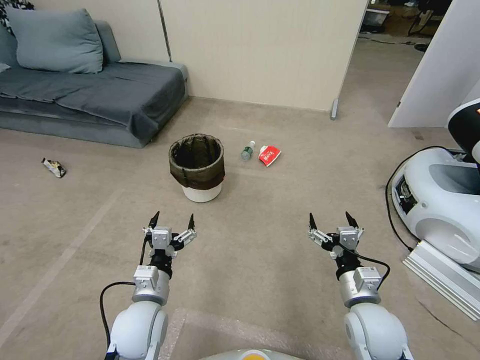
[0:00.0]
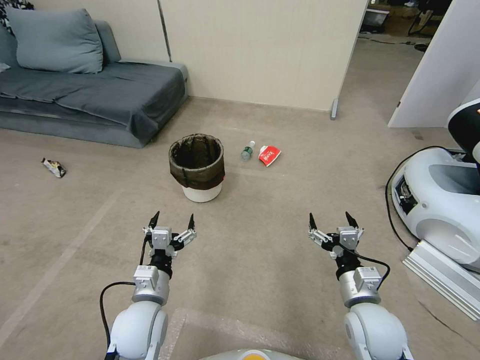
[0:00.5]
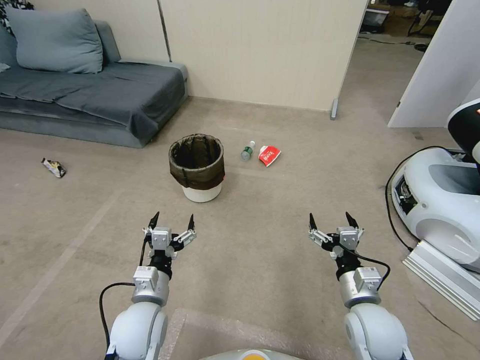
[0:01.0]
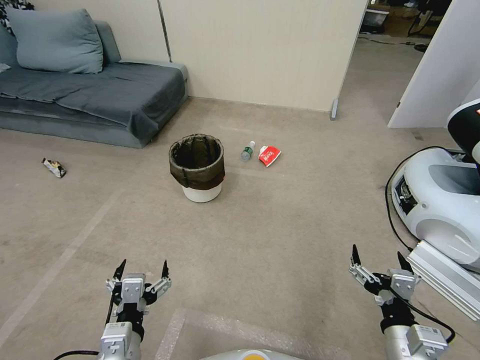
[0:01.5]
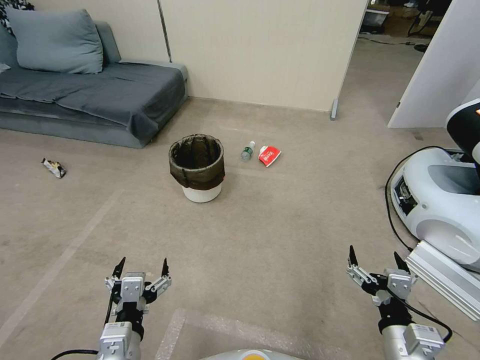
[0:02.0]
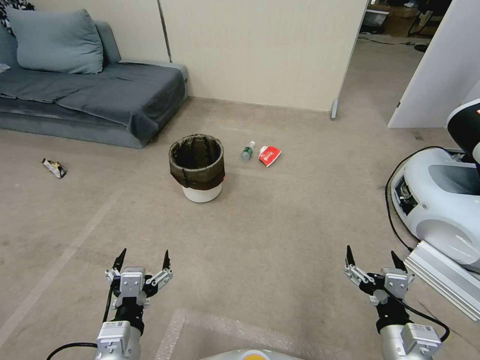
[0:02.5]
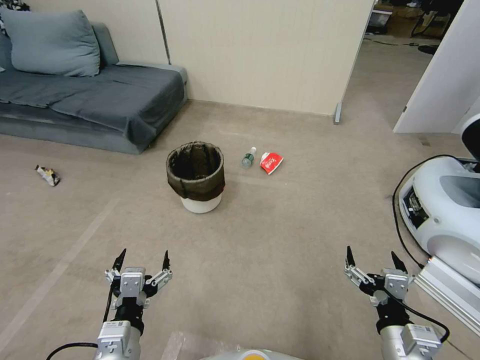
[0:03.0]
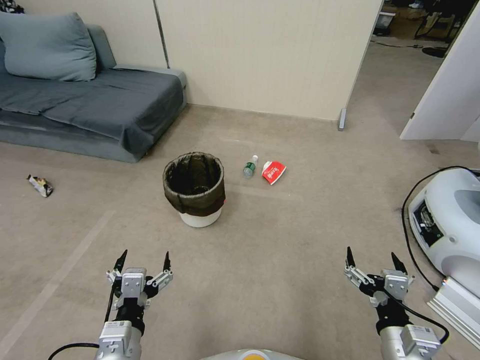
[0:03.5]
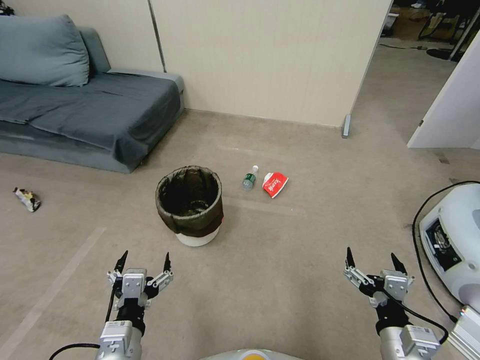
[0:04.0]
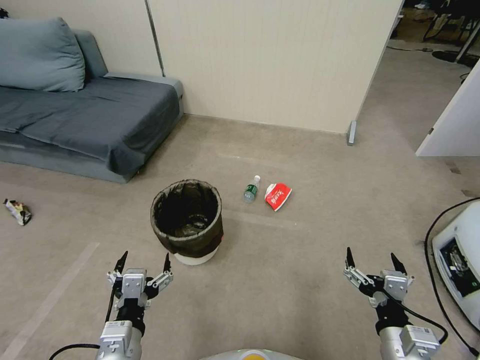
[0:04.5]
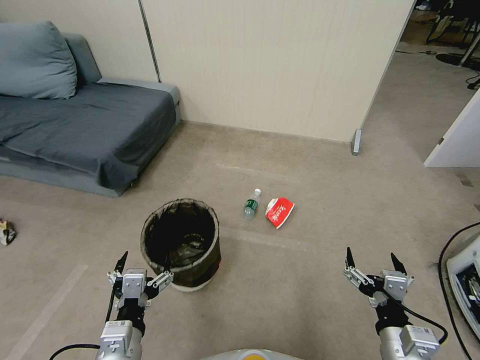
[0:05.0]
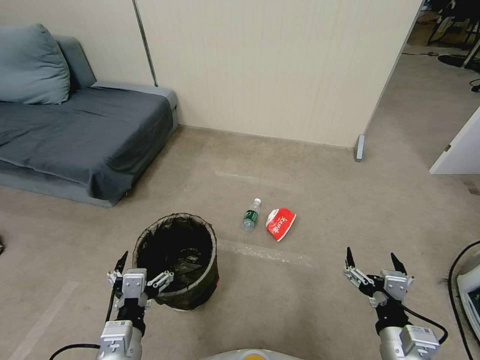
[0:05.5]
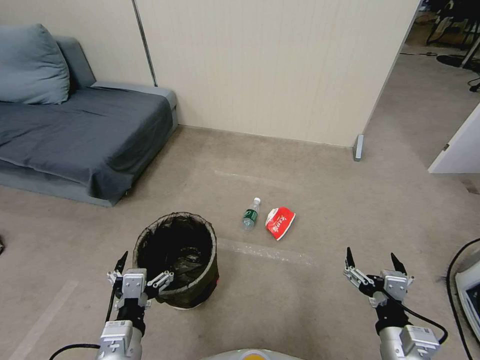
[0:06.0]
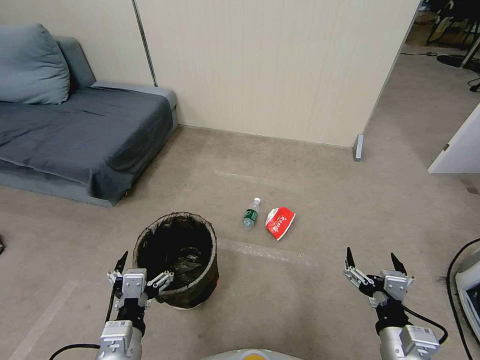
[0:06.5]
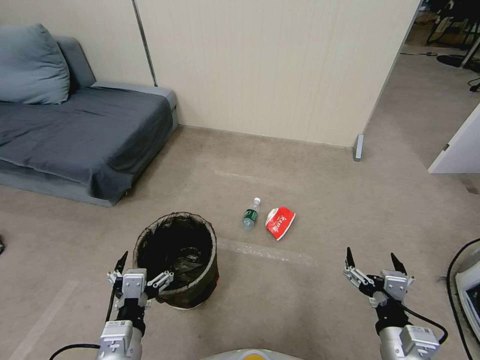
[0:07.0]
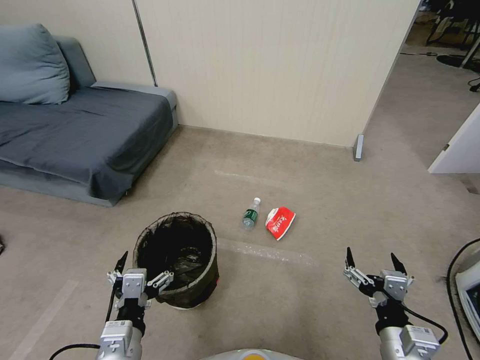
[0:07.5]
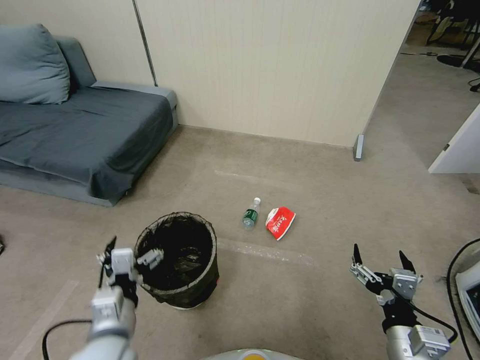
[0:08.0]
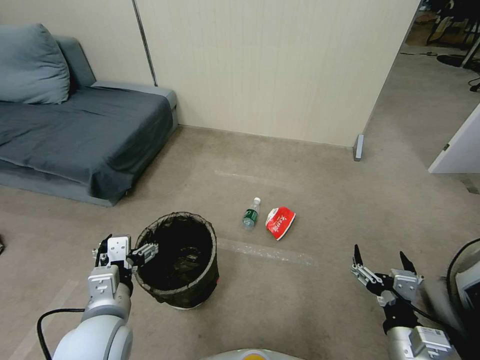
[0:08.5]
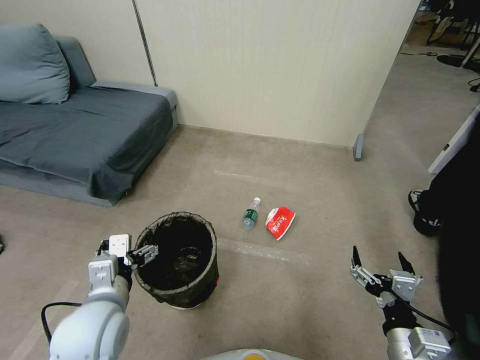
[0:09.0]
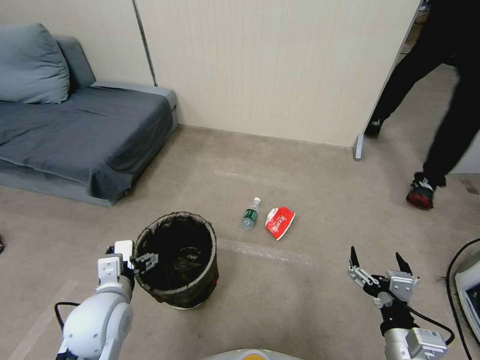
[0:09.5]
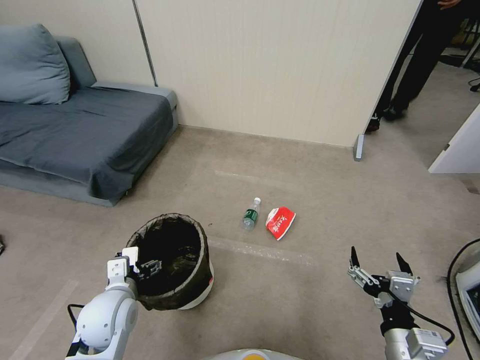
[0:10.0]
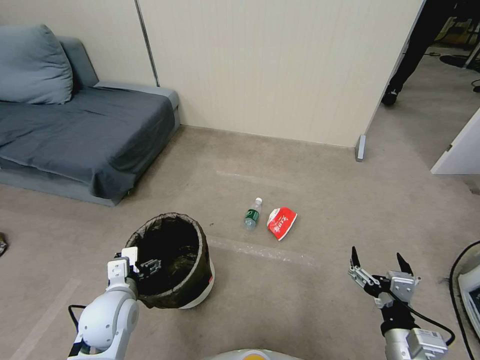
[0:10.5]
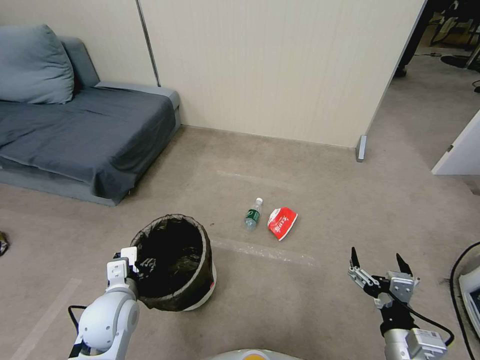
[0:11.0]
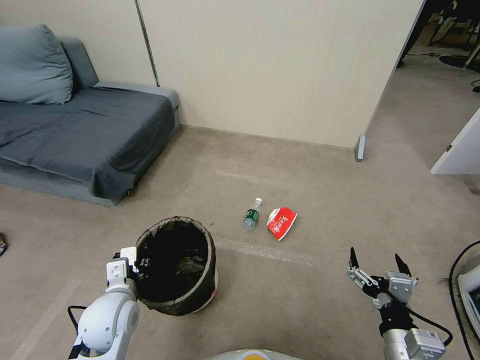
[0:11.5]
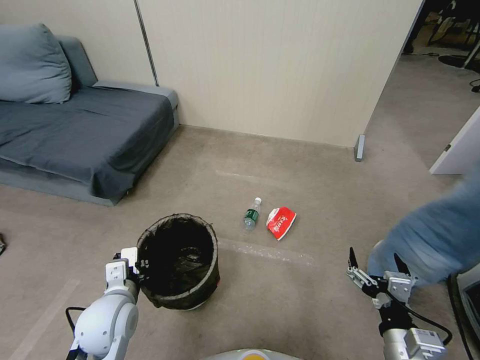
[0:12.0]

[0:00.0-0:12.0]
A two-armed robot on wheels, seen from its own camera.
Task of the whole recording: Pick up the trash bin, then pick up the garbage from the floor and place it into the trash bin.
0:06.0 to 0:08.0: The grippers move only a little.
0:08.0 to 0:10.0: The left gripper travels forward and downward by some 10 cm.
0:10.0 to 0:12.0: The left gripper closes up.

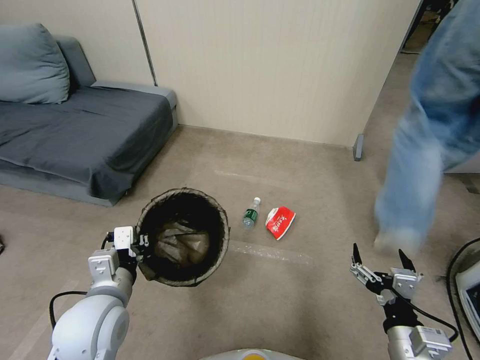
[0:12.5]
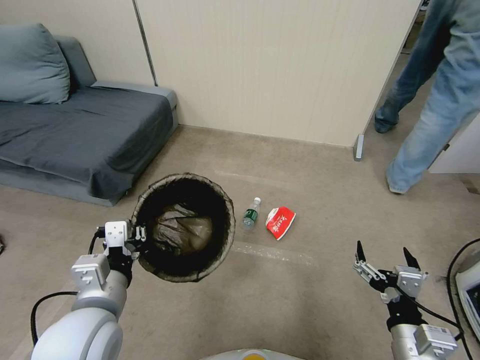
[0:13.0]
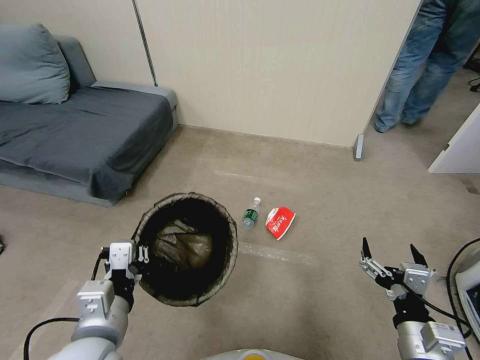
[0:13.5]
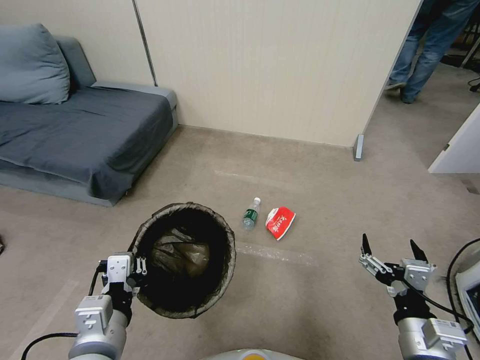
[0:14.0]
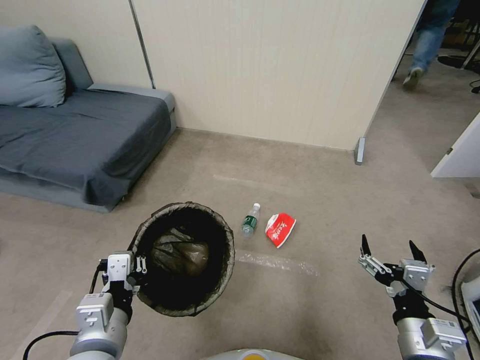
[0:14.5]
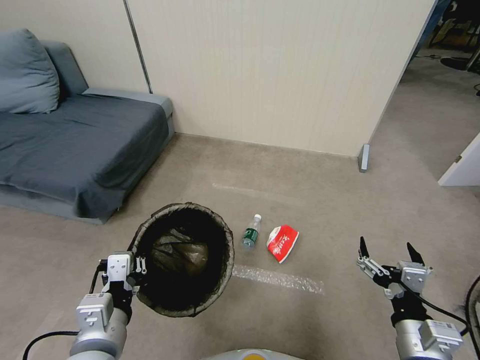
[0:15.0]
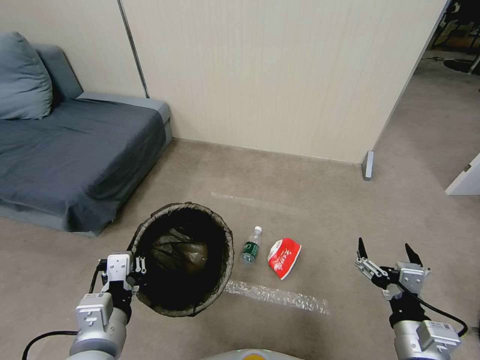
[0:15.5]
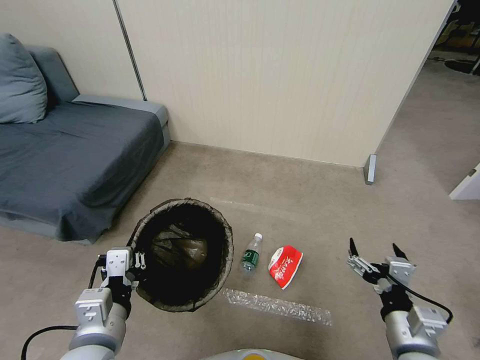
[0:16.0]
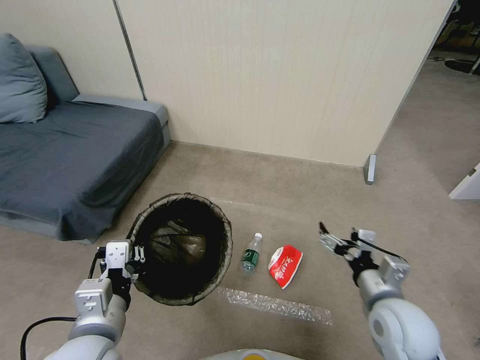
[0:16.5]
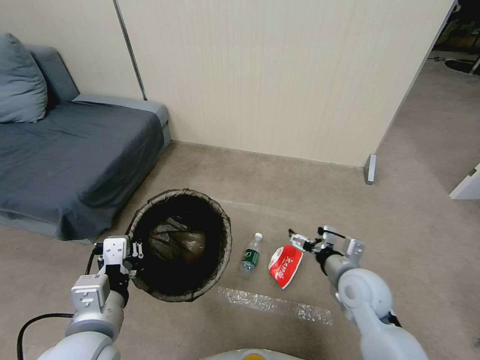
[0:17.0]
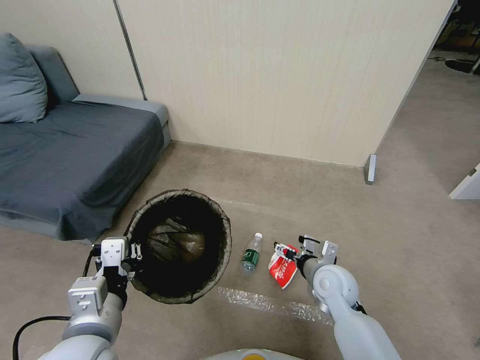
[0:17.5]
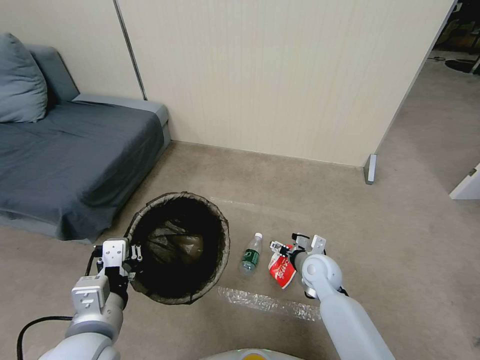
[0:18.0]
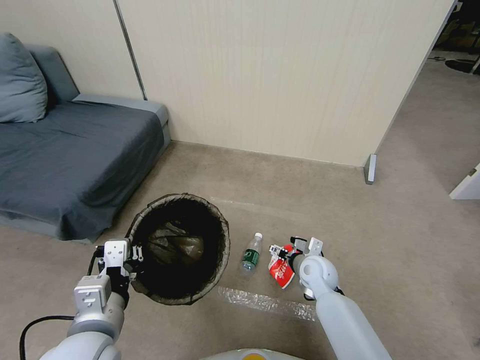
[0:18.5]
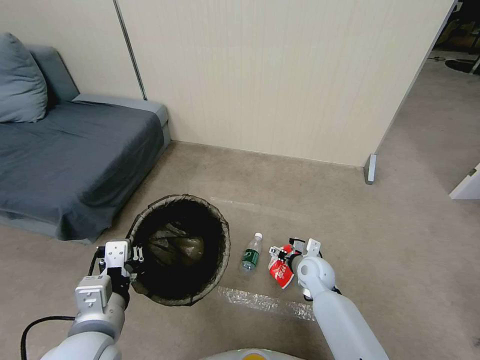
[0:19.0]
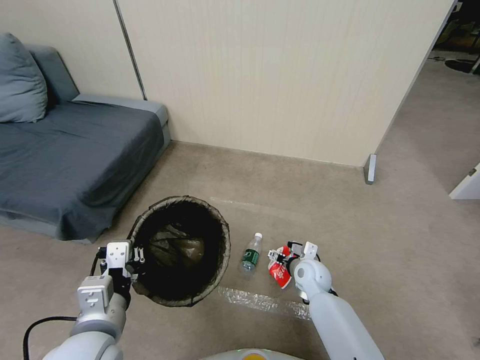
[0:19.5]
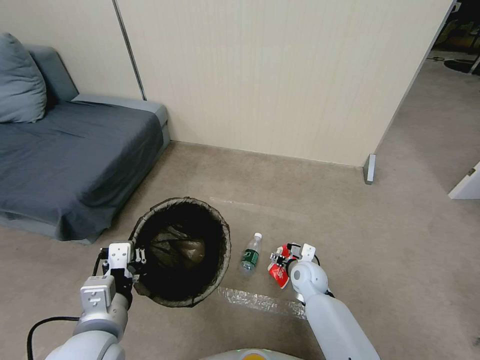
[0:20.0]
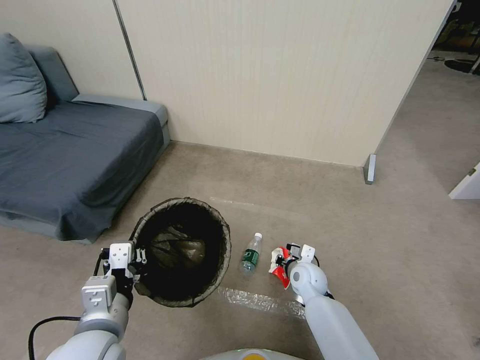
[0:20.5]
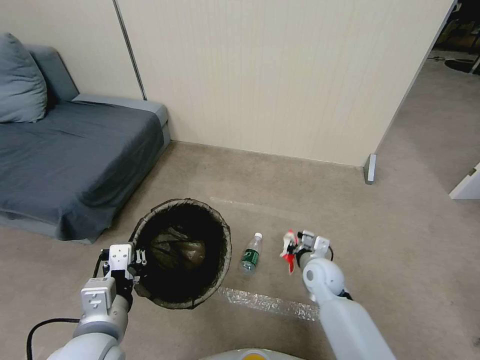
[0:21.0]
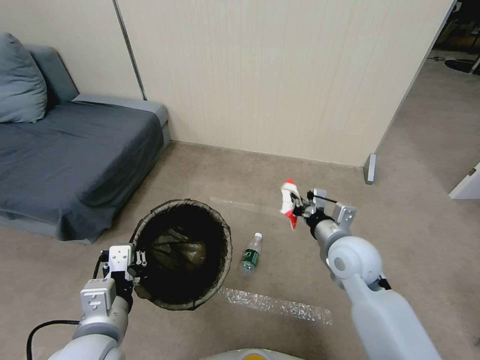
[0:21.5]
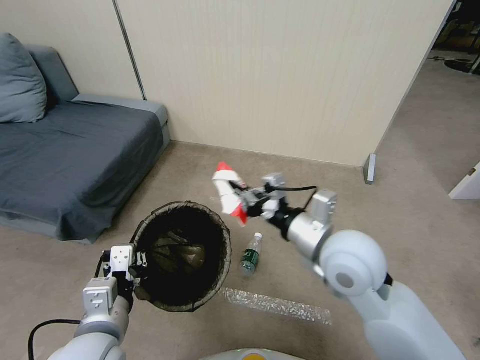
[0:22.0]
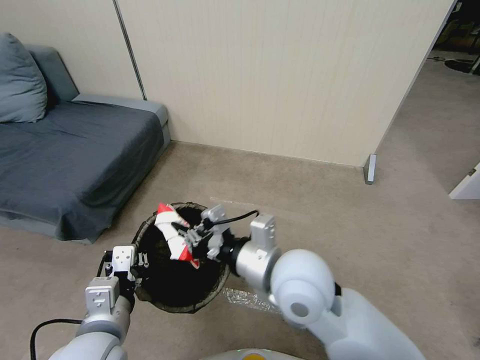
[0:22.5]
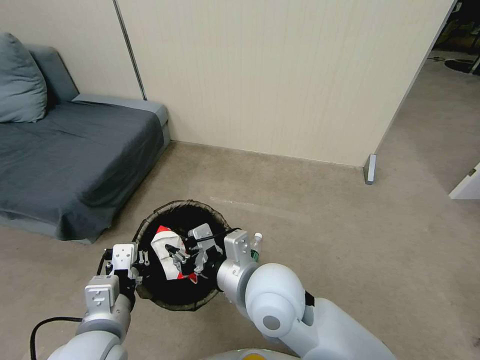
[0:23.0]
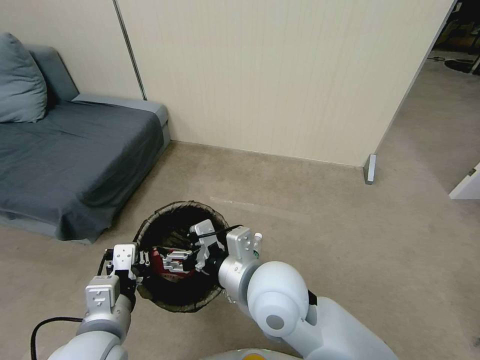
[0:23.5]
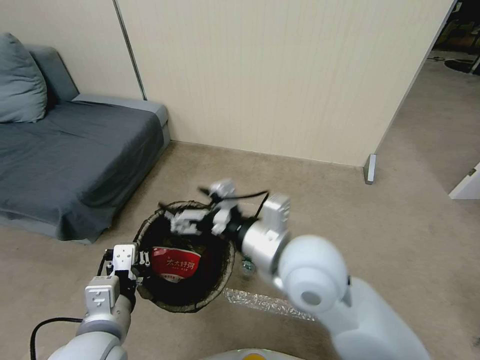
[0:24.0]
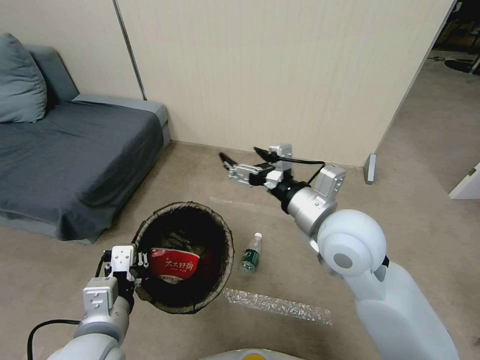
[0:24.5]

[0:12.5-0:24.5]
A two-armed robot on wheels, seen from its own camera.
Task of the whole recording: Pick up the trash bin, then pick up the garbage from the floor and place it into the trash bin.
0:12.5 to 0:14.5: The left gripper travels backward by roughly 10 cm.
0:14.5 to 0:16.5: The right gripper shifts some 10 cm forward.
0:16.5 to 0:18.5: The right gripper heads forward, downward and to the left, covering about 20 cm.
0:18.5 to 0:20.5: The right gripper closes its fingers.
0:20.5 to 0:22.5: The right gripper goes approximately 30 cm upward.
0:22.5 to 0:24.5: The right gripper travels to the right and forward by some 10 cm, and opens.

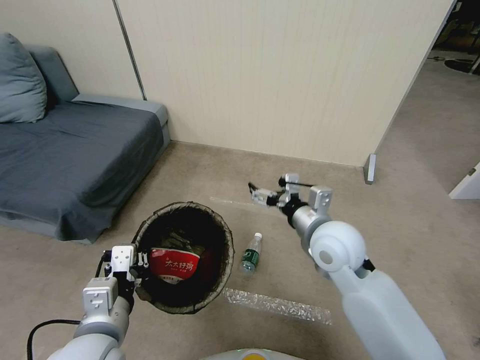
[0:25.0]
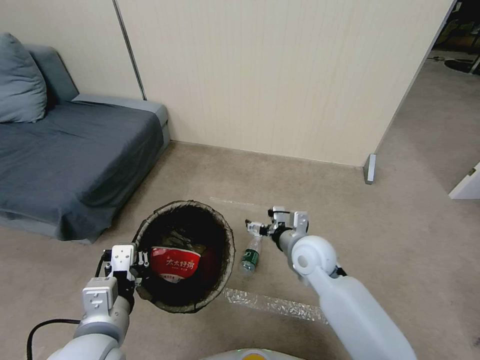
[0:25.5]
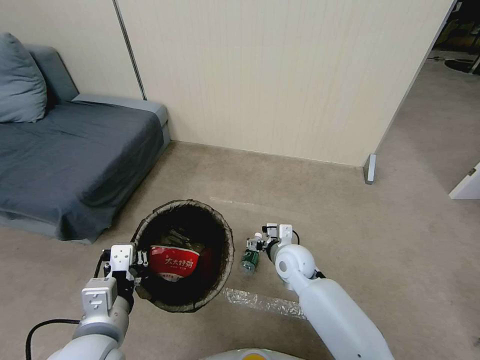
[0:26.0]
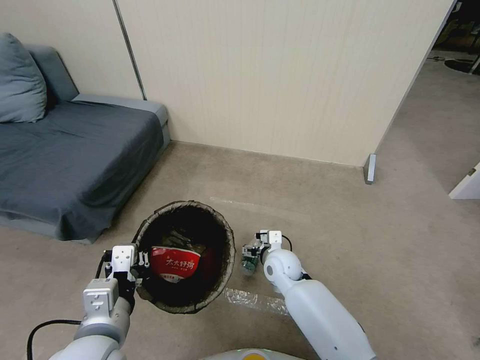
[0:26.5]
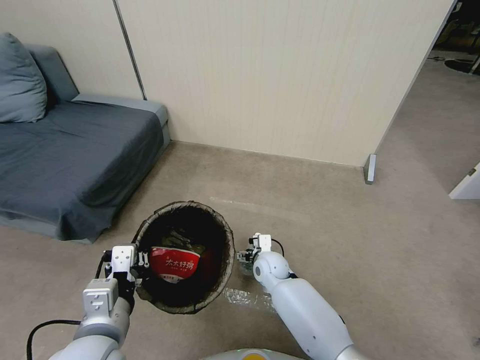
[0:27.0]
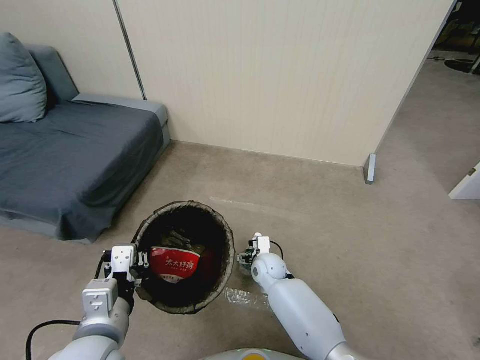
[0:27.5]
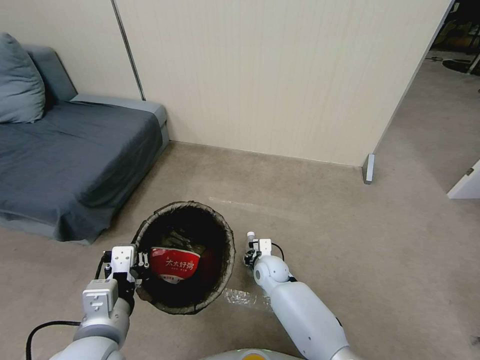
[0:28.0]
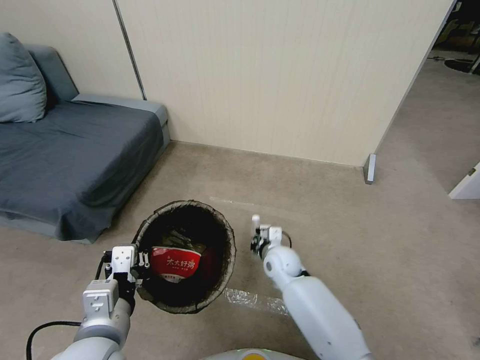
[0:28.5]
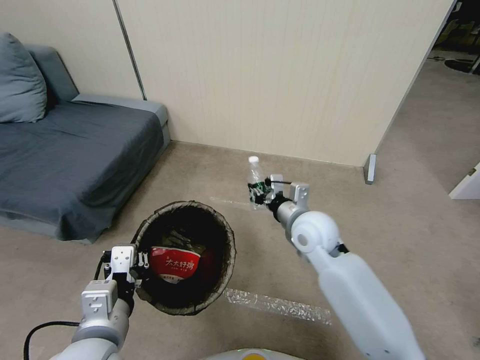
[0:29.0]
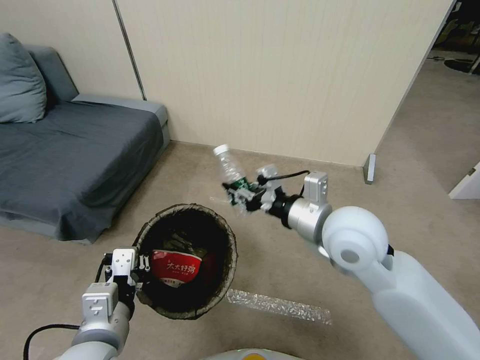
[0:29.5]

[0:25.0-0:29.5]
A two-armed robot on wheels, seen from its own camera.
Task of the whole recording: Pick up the trash bin, then pick up the garbage from the floor and place it into the trash bin.
0:25.0 to 0:27.0: The right gripper is displaced downward by about 25 cm.
0:27.0 to 0:29.5: The right gripper is displaced upward by some 35 cm, and closes its fingers.
